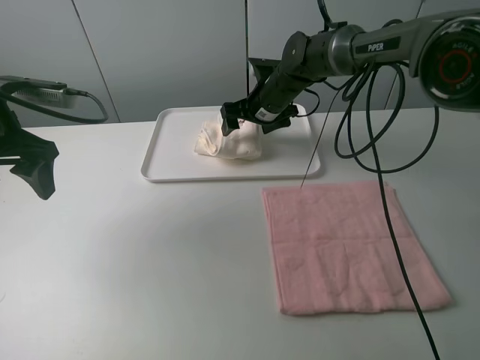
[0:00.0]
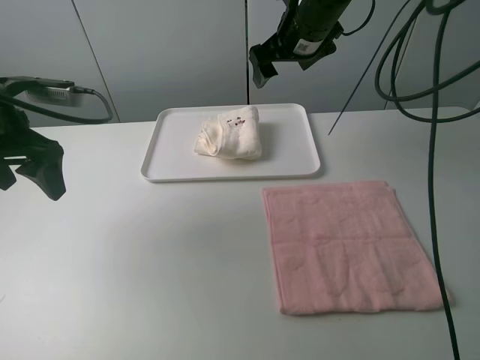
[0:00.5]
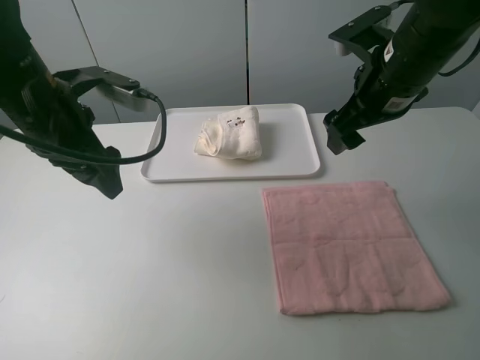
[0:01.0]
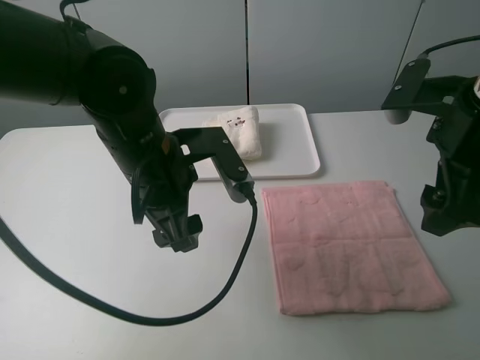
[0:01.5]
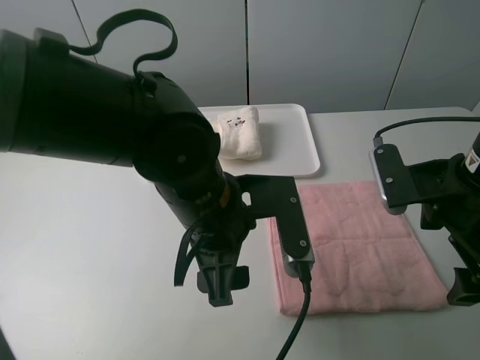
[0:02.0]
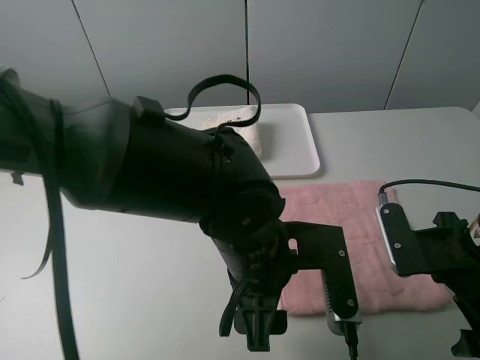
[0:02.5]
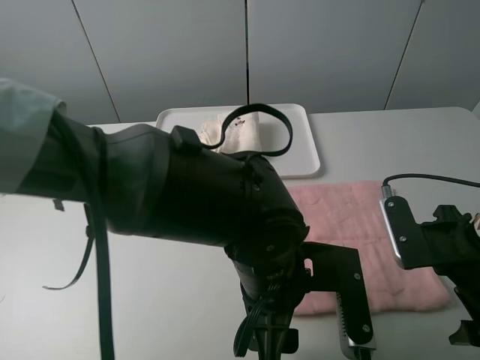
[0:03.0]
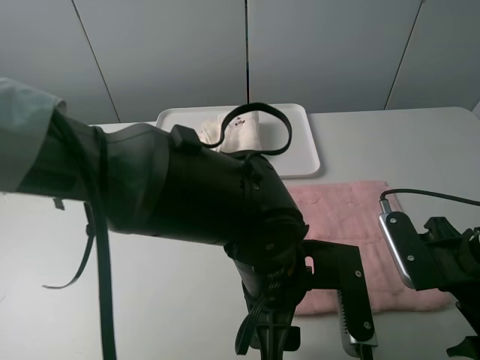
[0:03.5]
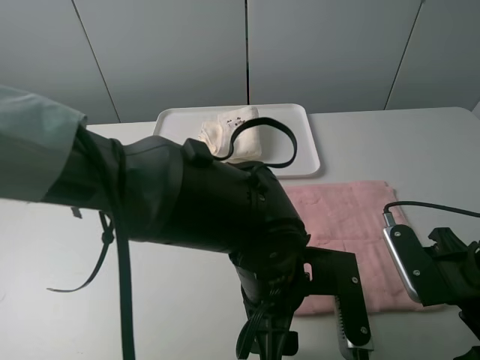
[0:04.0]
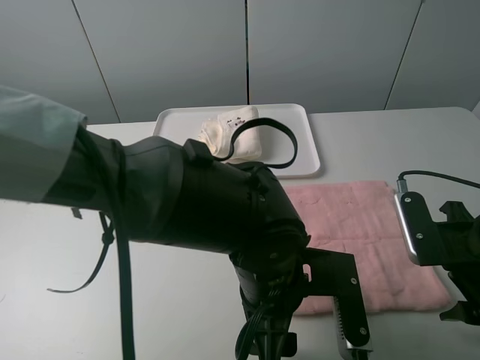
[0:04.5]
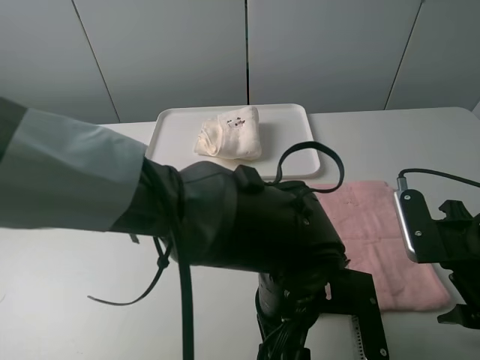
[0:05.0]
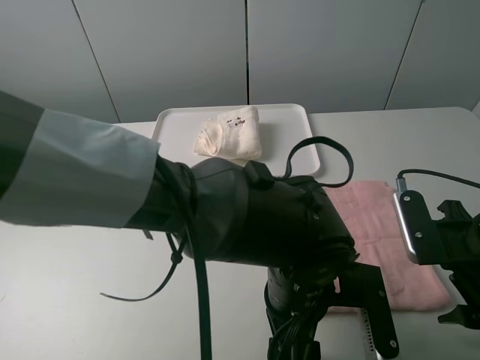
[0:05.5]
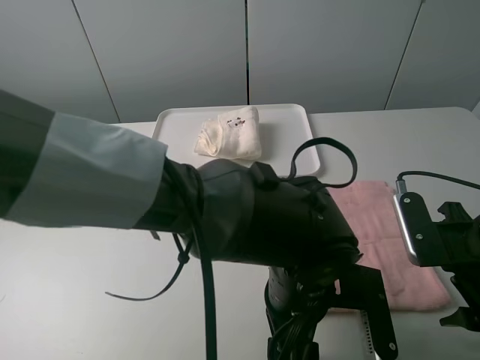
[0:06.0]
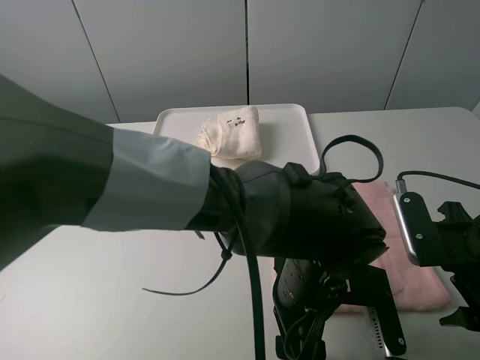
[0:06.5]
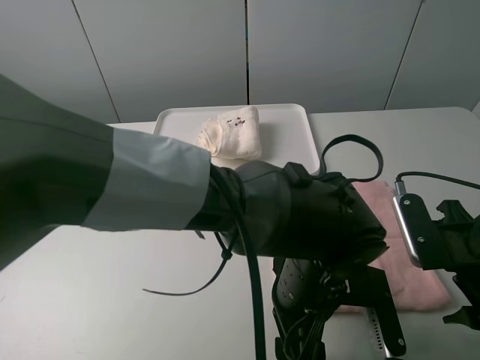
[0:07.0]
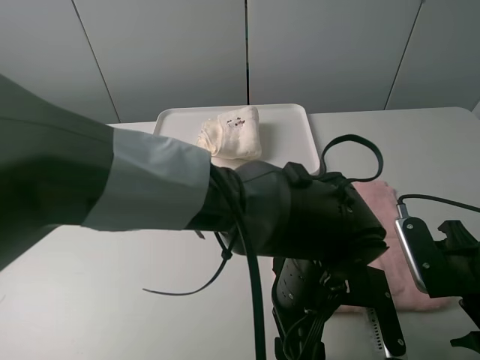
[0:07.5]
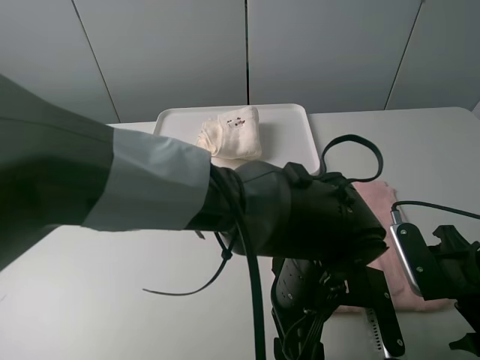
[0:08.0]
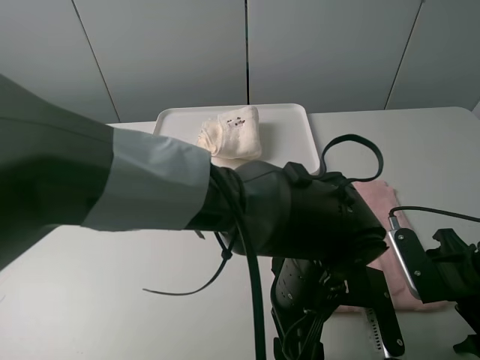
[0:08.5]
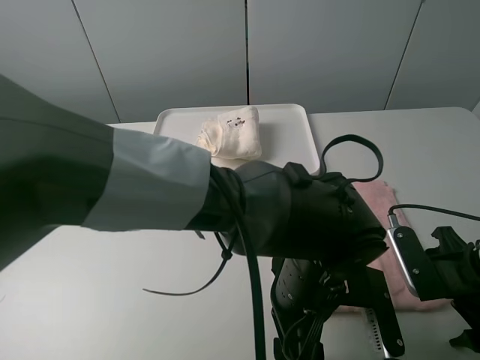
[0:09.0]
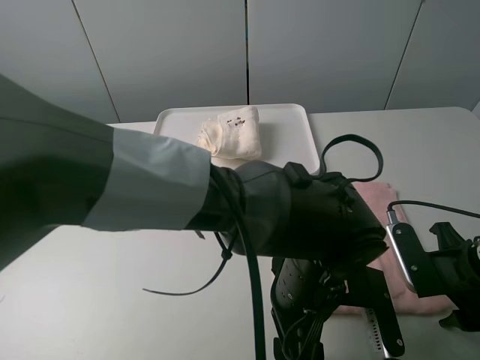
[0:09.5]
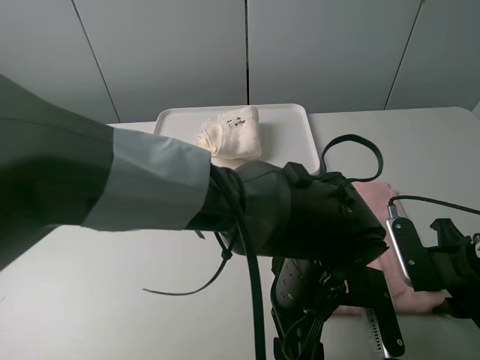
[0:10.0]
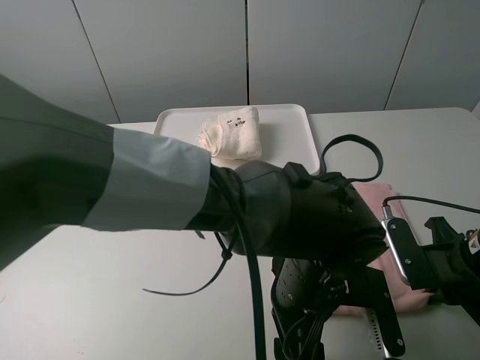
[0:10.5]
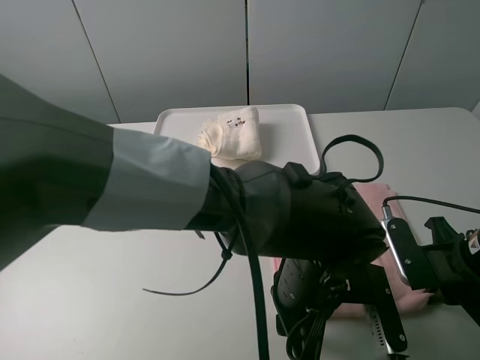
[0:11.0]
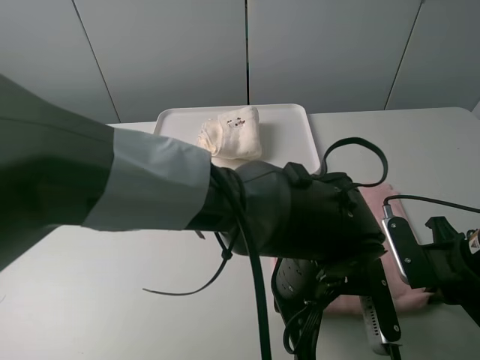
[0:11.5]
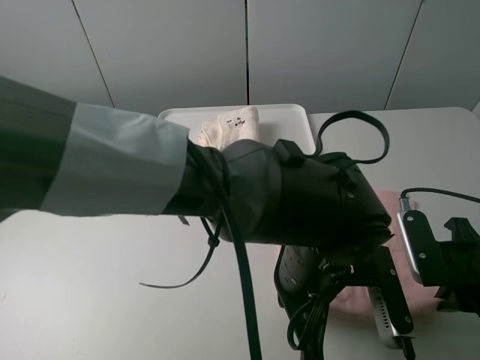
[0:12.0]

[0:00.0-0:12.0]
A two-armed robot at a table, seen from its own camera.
Task of the whole recording: fold one of the towels by two grippers and place it on the tray,then fold another towel by two grippers and place it on the folded towel.
Step, 0:00.5 to 0:11.5: Grasp the pink towel with the left gripper.
0:00.0 to 0:02.0: The left gripper moves to the right, about 25 cm, while the right gripper shifts about 35 cm backward and to the right.
0:02.0 to 0:04.0: The left gripper shifts approximately 10 cm to the right and downward. Meanwhile the right gripper travels downward by about 5 cm.
0:08.0 to 0:10.0: The right gripper closes its fingers.
0:10.0 to 0:12.0: The left gripper closes.

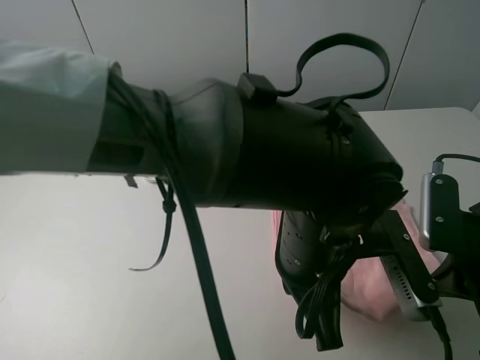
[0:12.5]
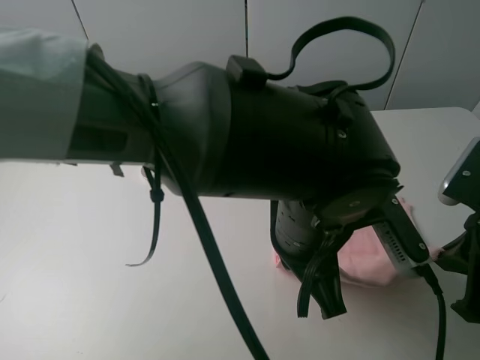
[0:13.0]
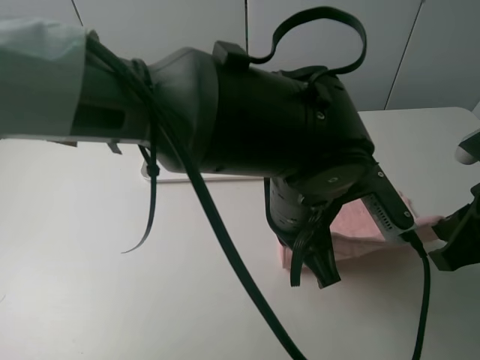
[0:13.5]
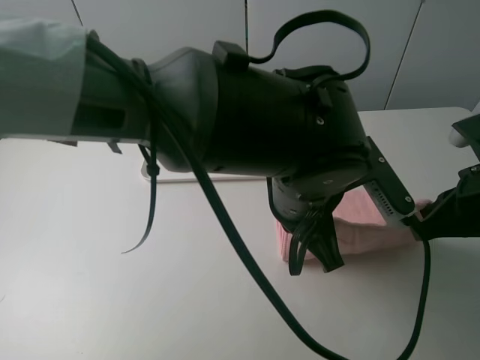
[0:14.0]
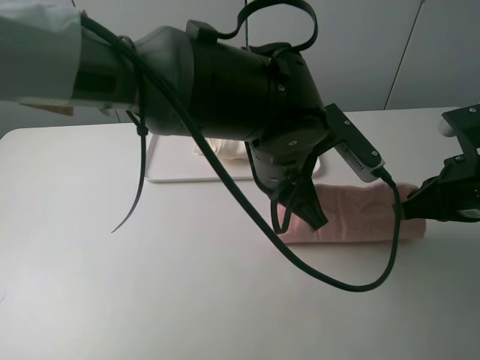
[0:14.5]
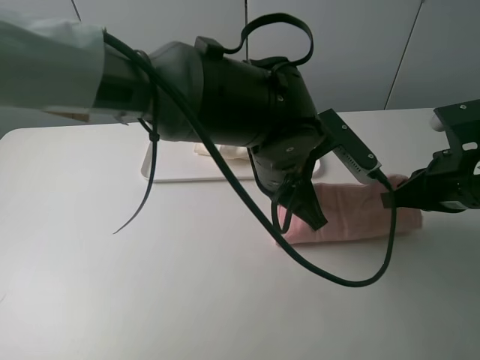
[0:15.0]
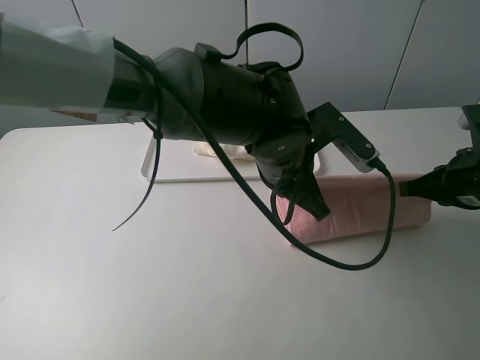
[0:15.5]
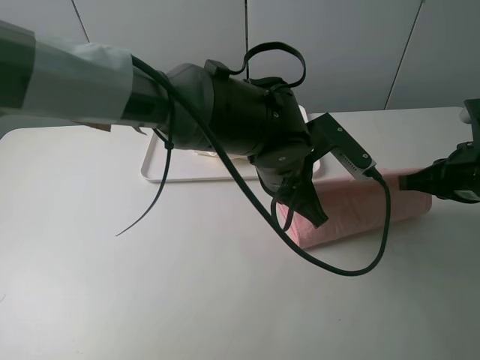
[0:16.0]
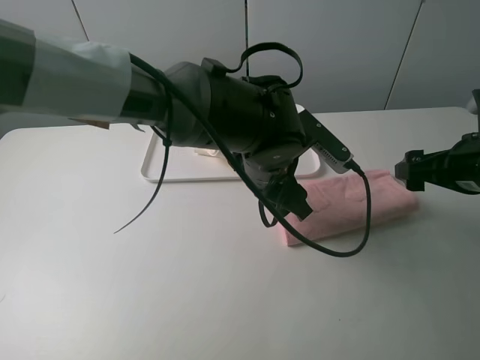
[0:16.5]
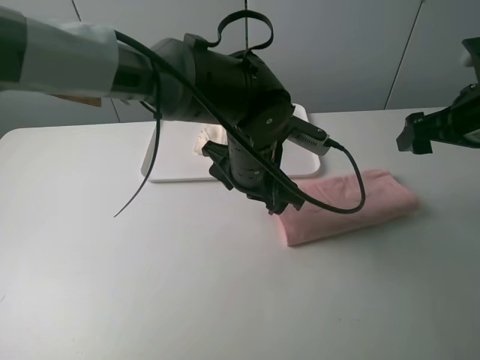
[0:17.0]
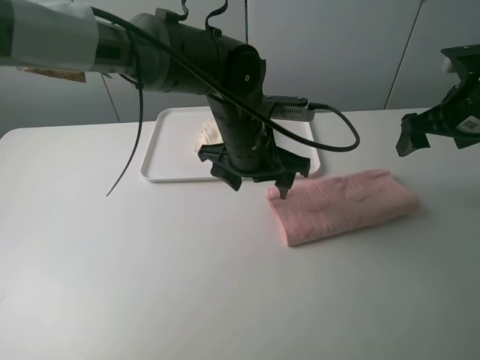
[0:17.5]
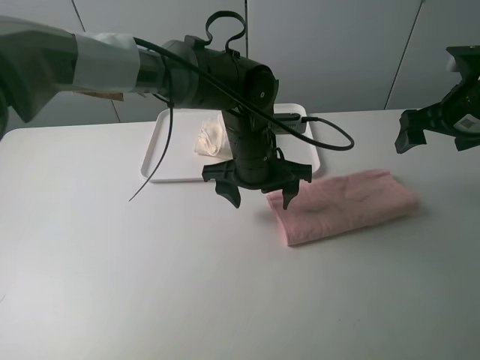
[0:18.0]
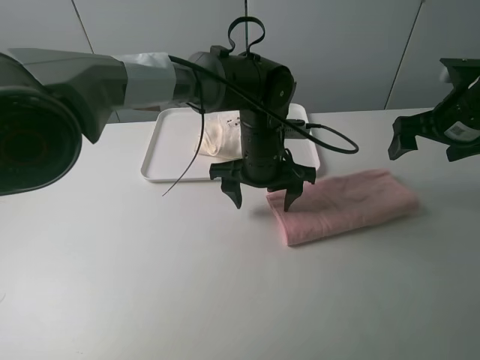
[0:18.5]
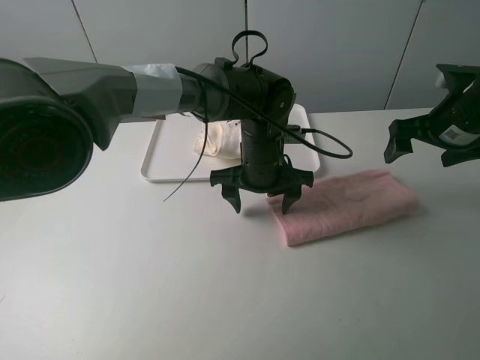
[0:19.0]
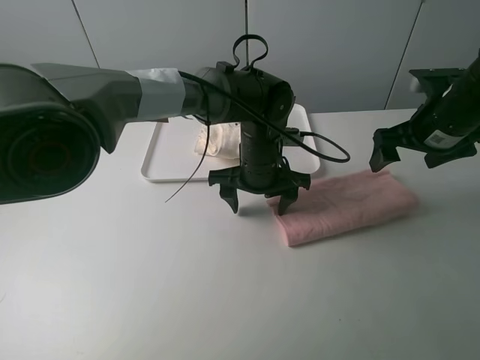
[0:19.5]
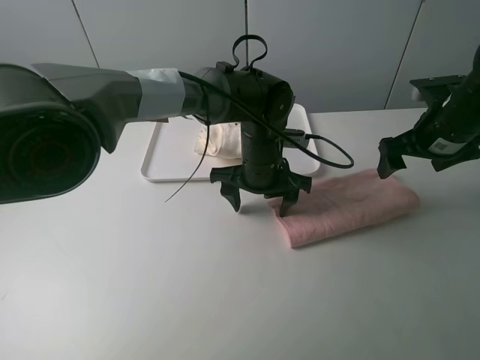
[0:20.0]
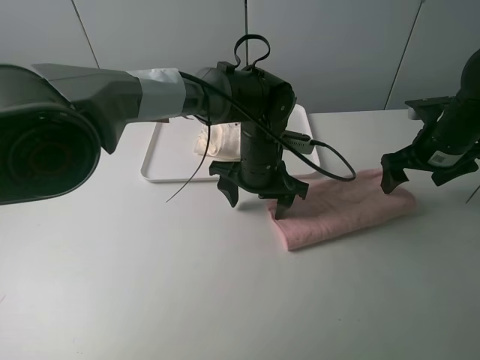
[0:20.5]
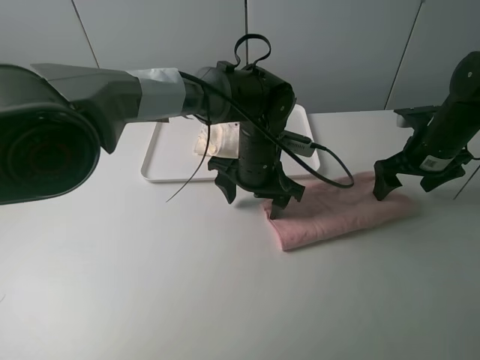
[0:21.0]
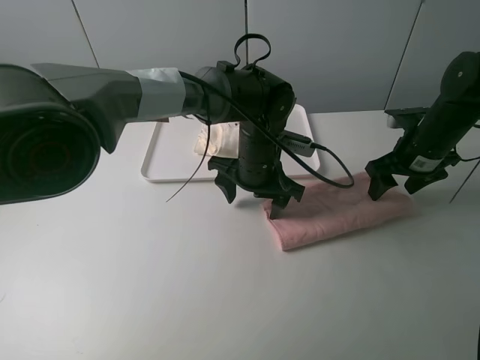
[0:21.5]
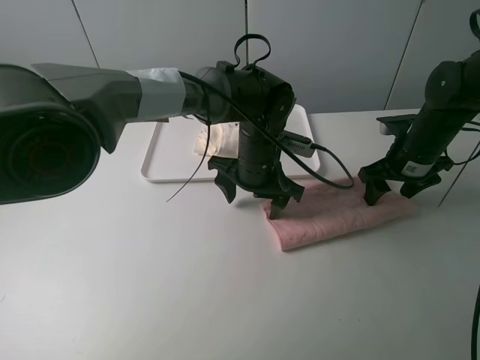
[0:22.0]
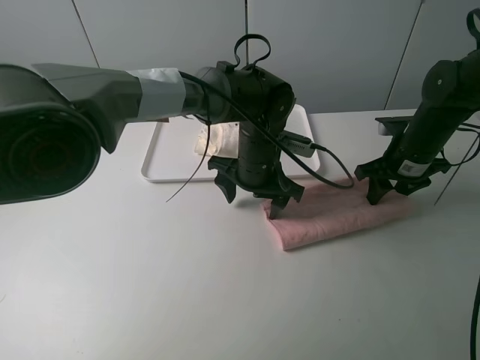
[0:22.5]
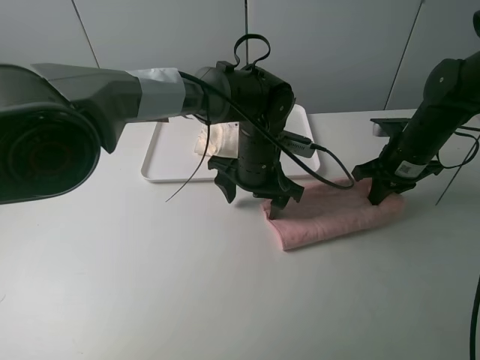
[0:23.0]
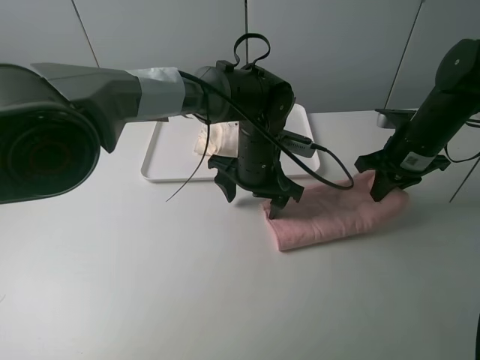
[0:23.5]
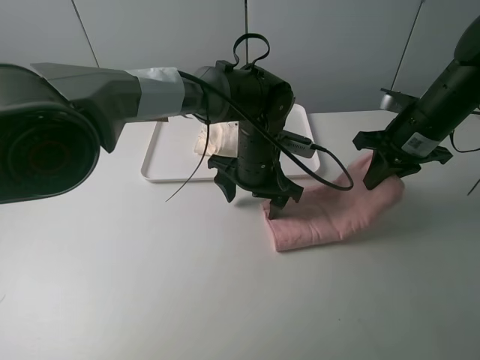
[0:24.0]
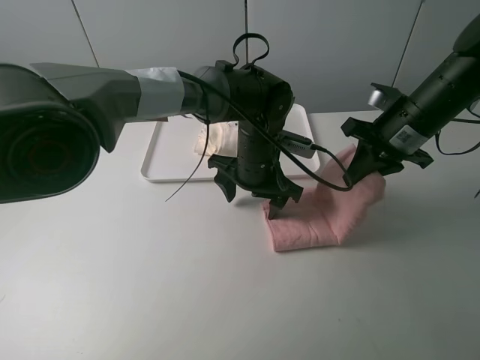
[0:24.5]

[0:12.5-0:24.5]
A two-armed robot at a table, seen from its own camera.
Task of the whole recording: fold one of the towels by two grippers and place it on the tray,then fold another towel by two grippers and place it on the folded towel.
Step, 0:12.5 to 0:16.0: Fold the pink towel upwards with the left gripper.
Step, 0:17.0 to 0:19.5: Press the pink towel with the left gripper.
Step, 0:20.0 to 0:22.5: Grasp the pink towel with the right gripper.
0:12.5 to 0:14.5: Both grippers travel together forward, some 10 cm.
0:14.5 to 0:16.5: The right gripper moves about 5 cm, and opens its fingers. Meanwhile the left gripper opens up.
0:16.5 to 0:18.5: The two grippers go about 10 cm forward.
0:18.5 to 0:20.5: The right gripper shifts some 5 cm downward.
0:20.5 to 0:22.5: The right gripper closes.
0:22.5 to 0:24.5: The right gripper heads upward, covering some 10 cm, and closes its fingers.

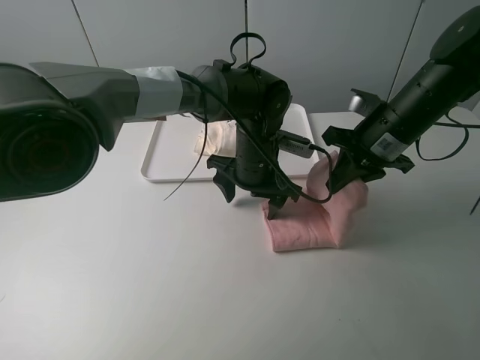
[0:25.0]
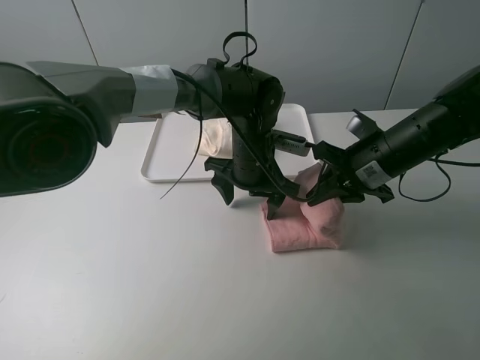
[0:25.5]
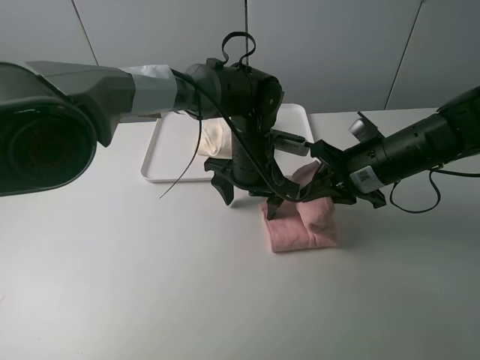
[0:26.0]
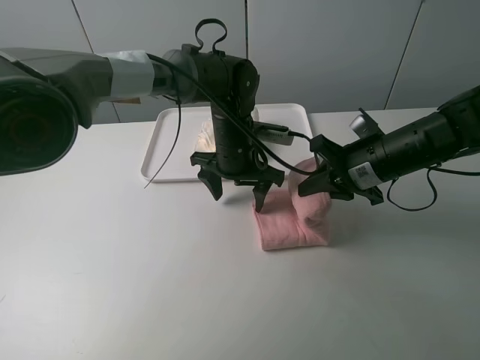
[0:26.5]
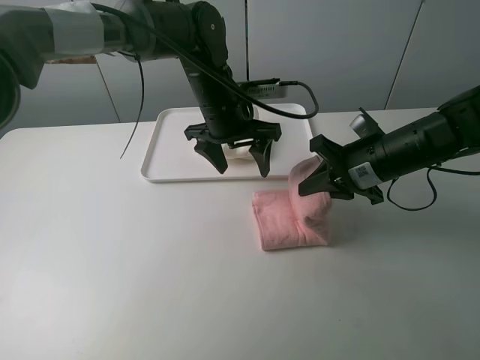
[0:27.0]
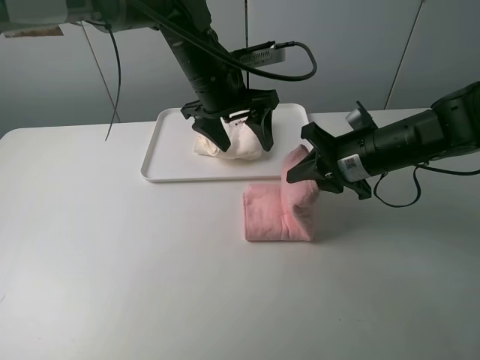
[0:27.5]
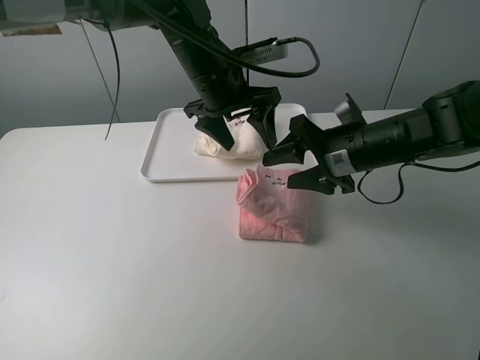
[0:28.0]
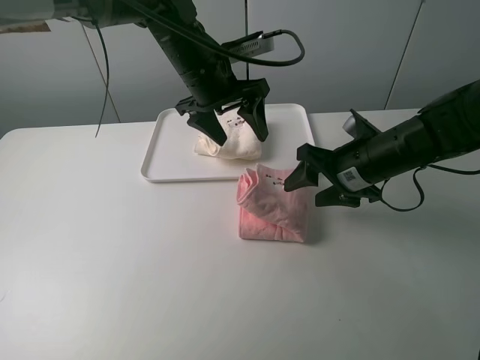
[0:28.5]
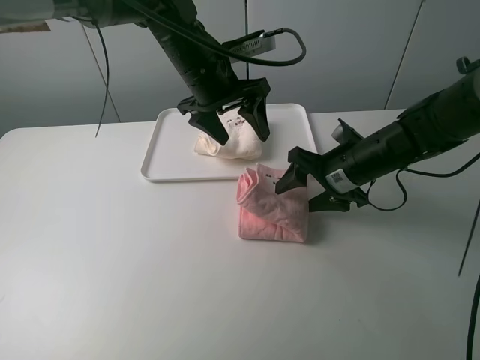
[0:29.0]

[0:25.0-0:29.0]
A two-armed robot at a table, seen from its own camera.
Task of the whole recording: fold one of the towels by two grippers and place it on the tray,then fold another towel by two grippers and place it on the folded towel.
Step, 0:25.0 to 0:28.5: Fold the pink towel from right to left with right gripper.
0:25.0 to 0:27.0: The left gripper is displaced upward and to the left by about 10 cm.
0:27.0 to 0:29.0: The right gripper opens its fingers.
